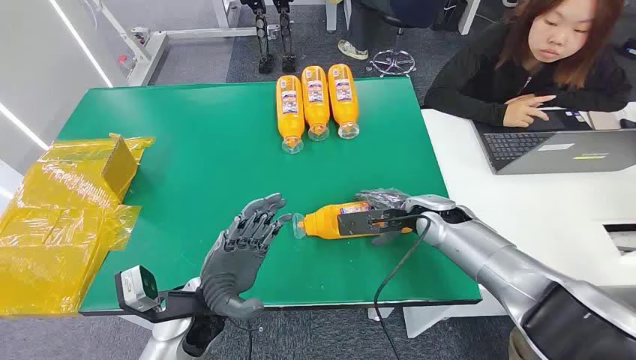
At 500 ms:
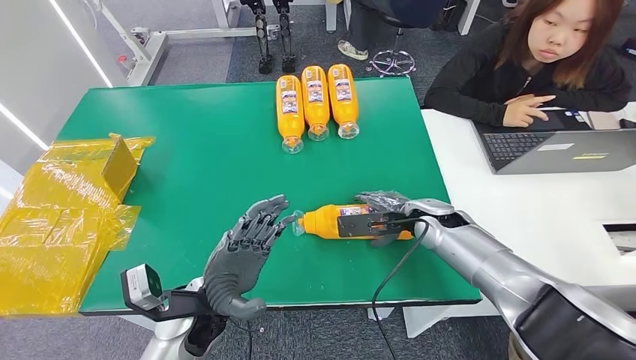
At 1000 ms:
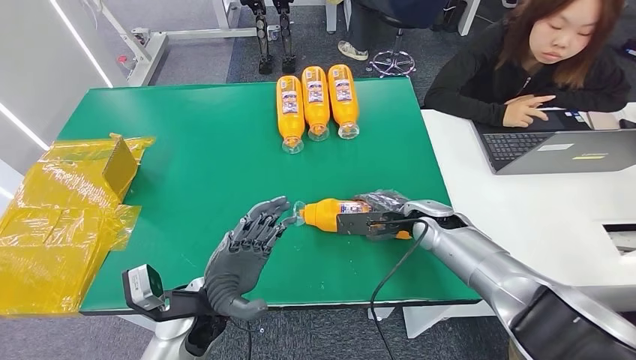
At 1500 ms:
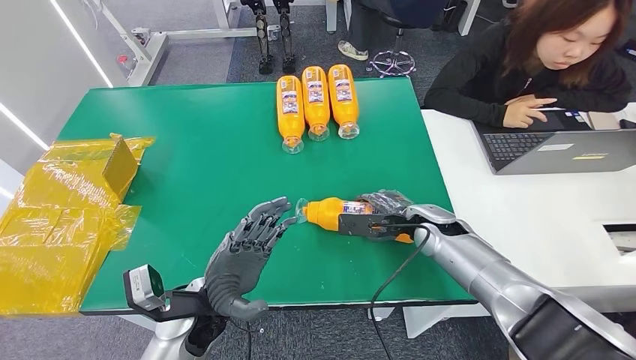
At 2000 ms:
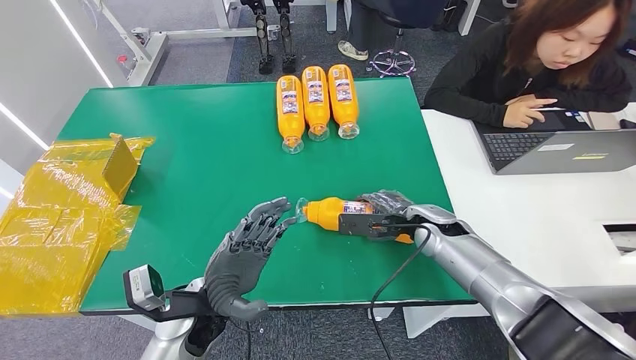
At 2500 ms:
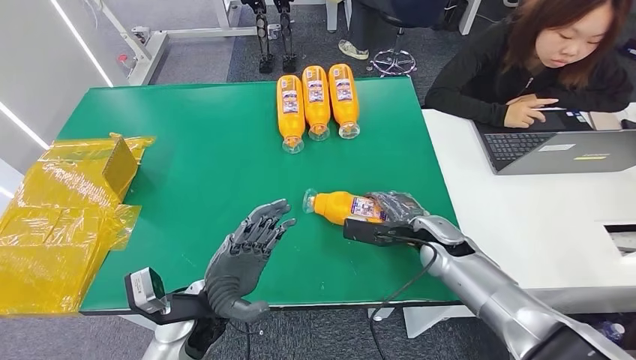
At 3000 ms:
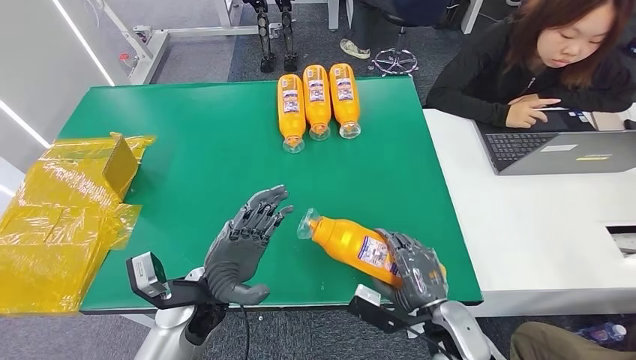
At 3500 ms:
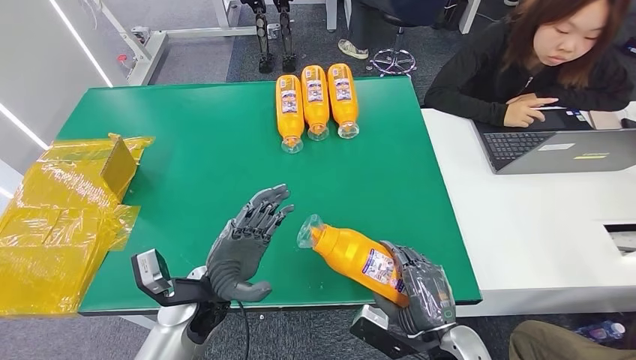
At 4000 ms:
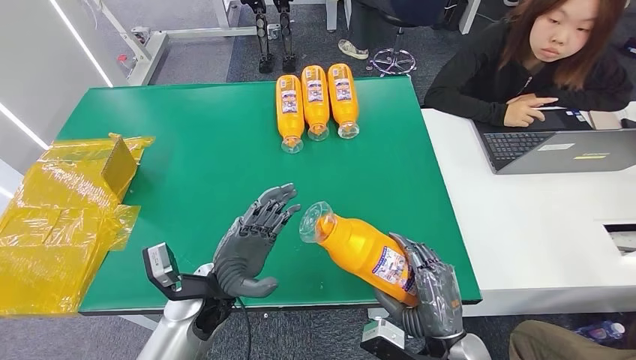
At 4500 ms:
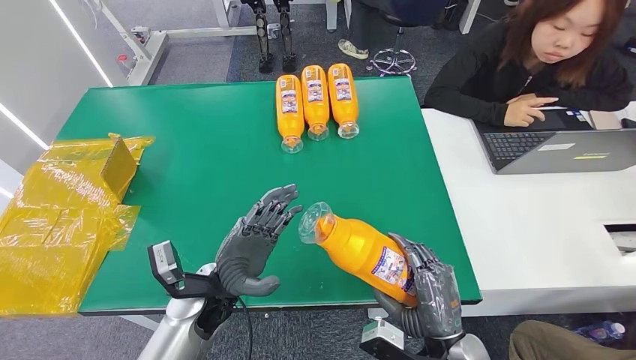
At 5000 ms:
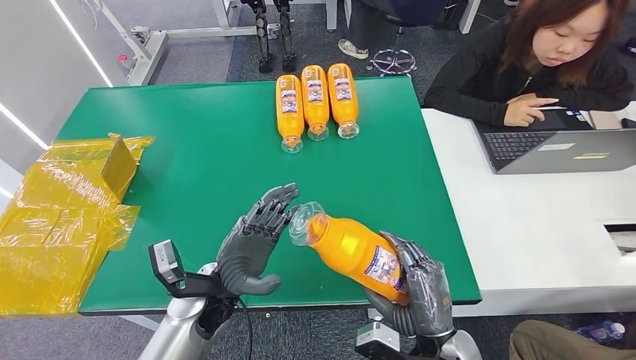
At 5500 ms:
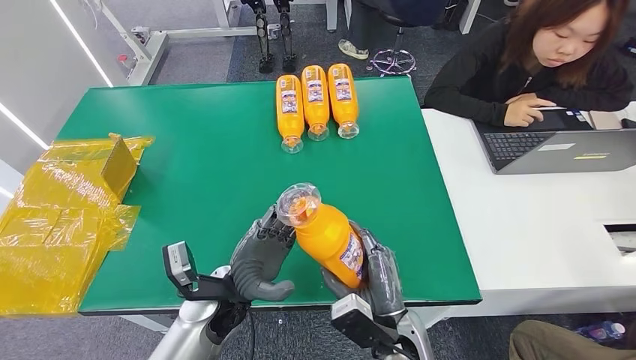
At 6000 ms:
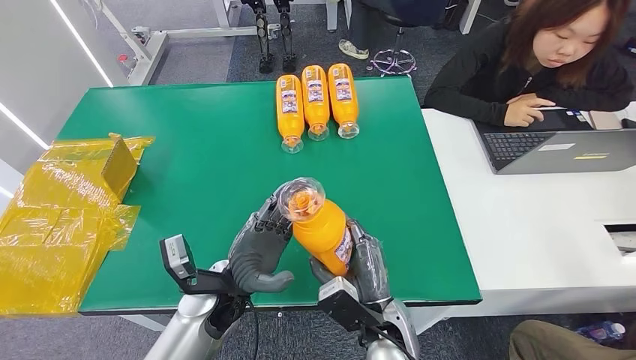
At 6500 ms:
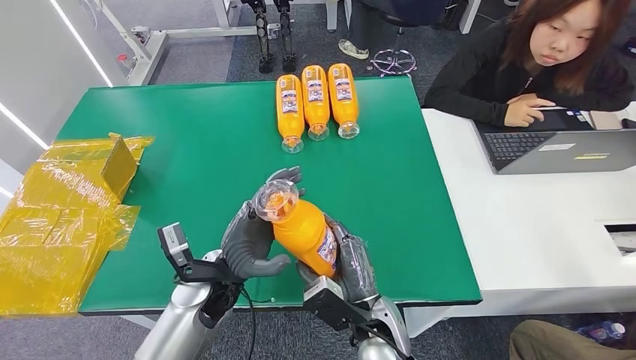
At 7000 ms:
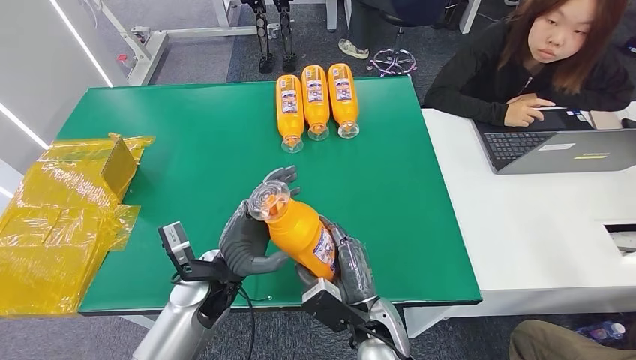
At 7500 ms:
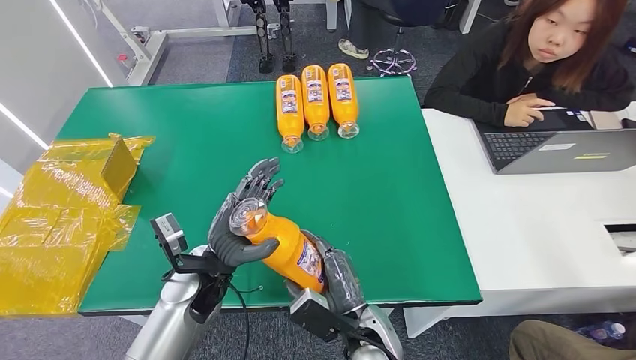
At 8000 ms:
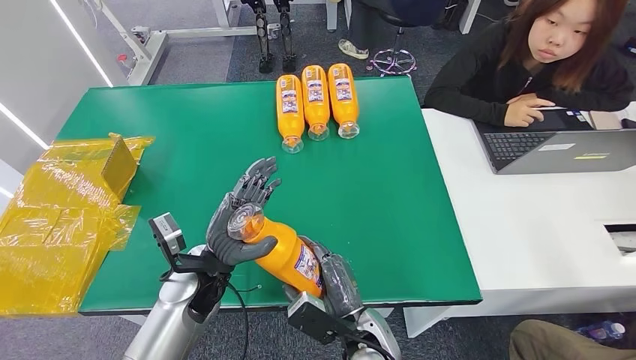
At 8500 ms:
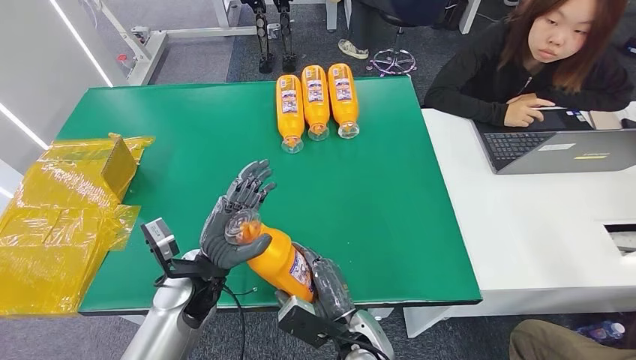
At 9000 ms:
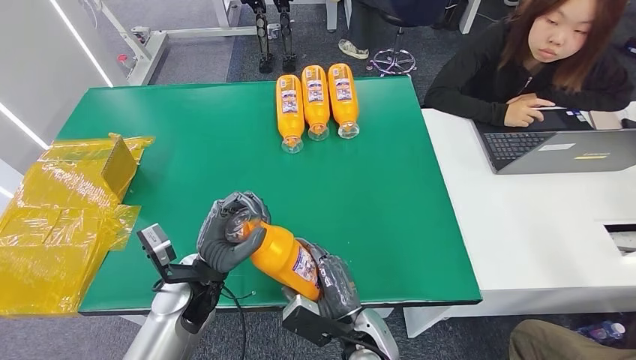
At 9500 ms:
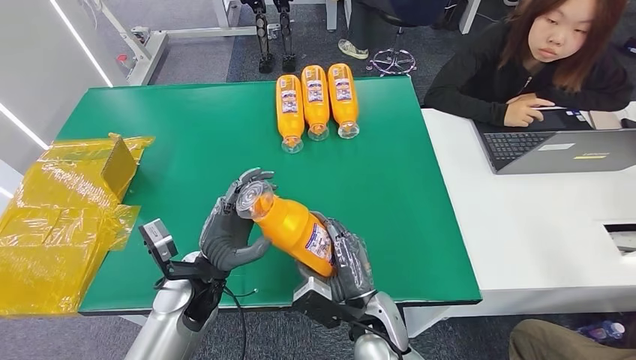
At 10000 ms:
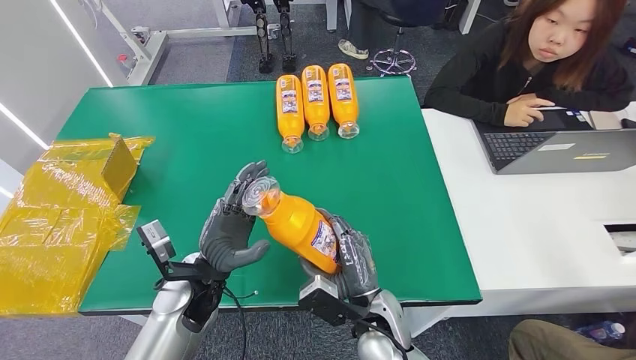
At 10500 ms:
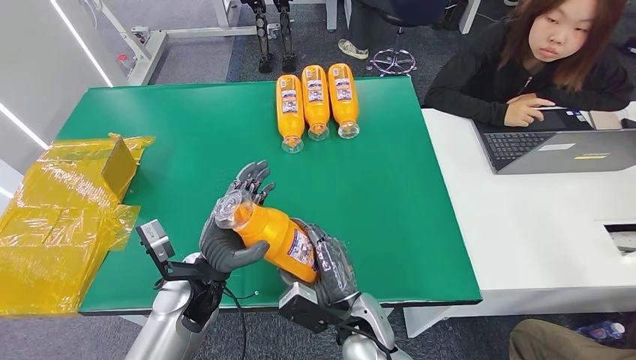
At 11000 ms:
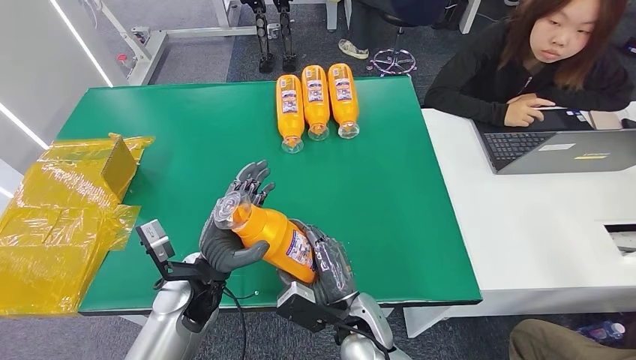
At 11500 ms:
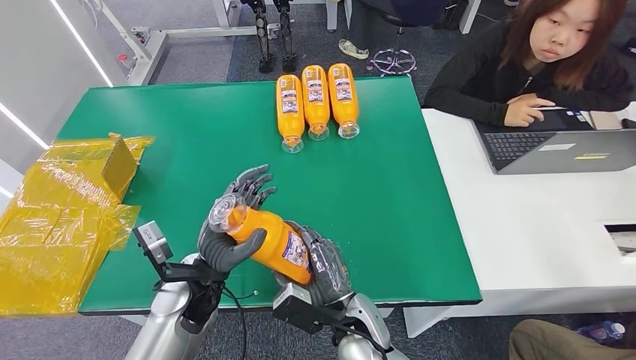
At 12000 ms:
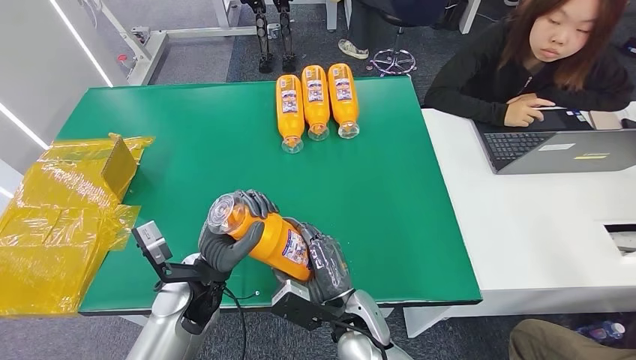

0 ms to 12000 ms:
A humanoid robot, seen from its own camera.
Step, 0 ms to 7000 ms: Pick up the bottle from the table.
2000 ms to 4000 ms: The right hand shifts approximately 25 cm backward.
4000 ms to 6000 ms: The right hand goes roughly 10 cm to the left and forward.
6000 ms to 12000 ms: The hands make only small movements.

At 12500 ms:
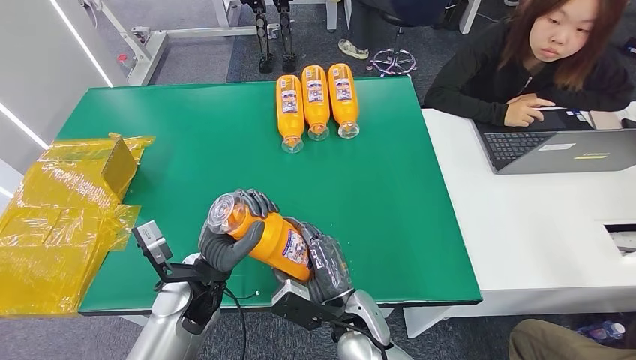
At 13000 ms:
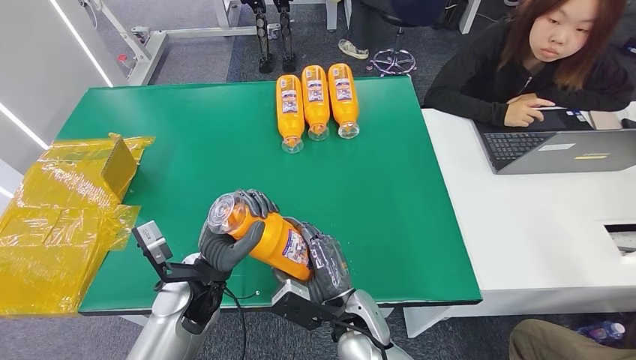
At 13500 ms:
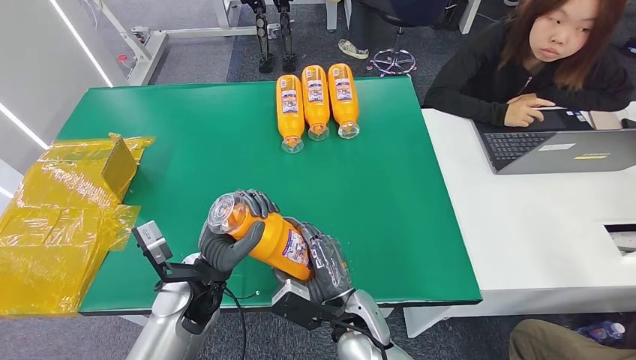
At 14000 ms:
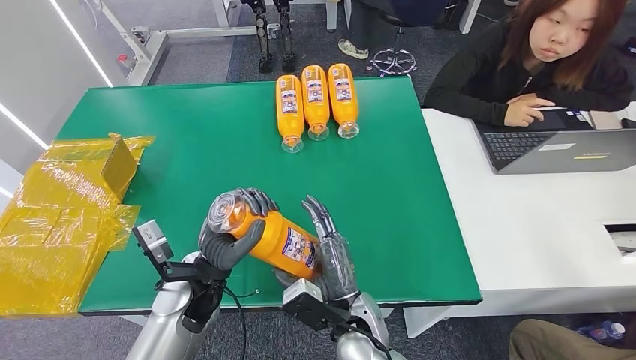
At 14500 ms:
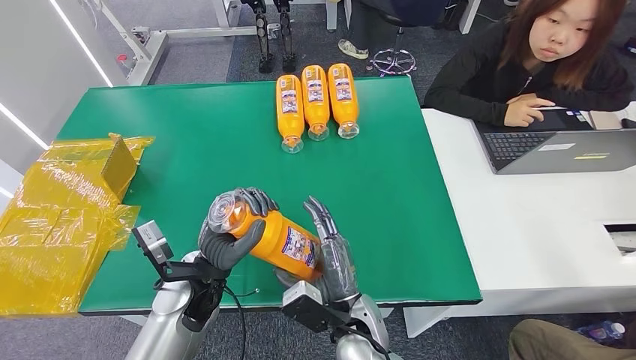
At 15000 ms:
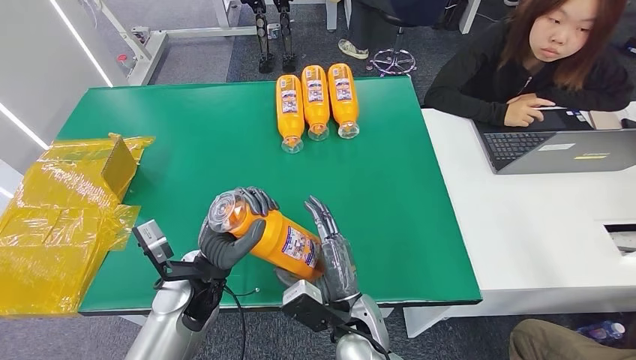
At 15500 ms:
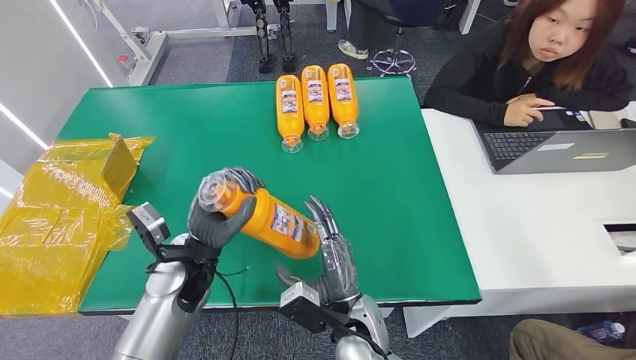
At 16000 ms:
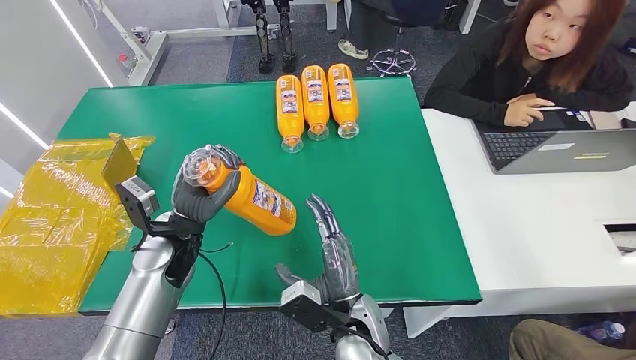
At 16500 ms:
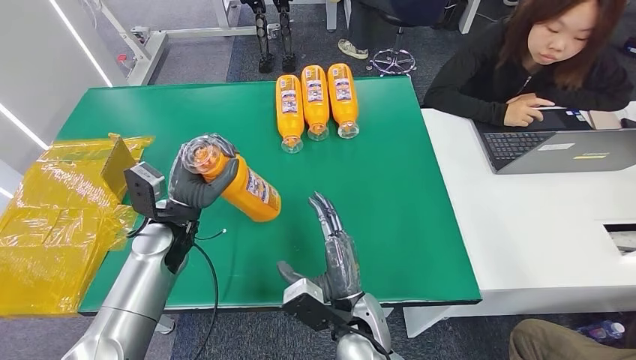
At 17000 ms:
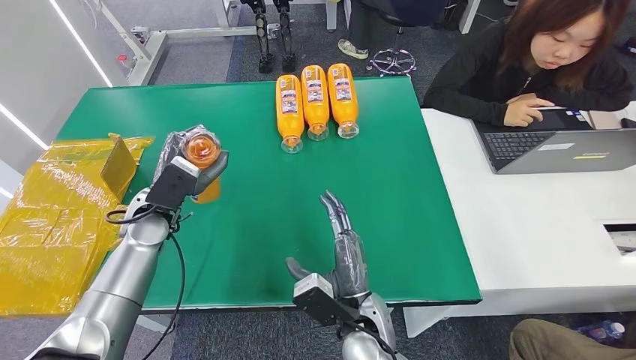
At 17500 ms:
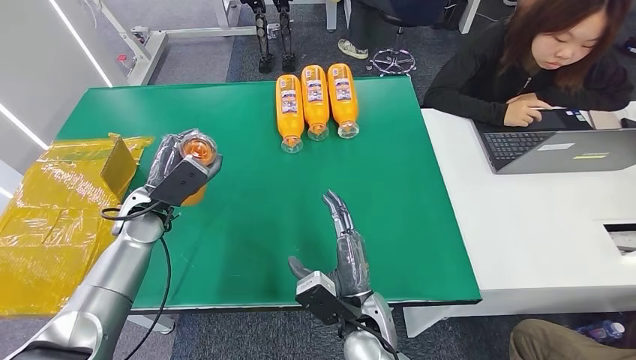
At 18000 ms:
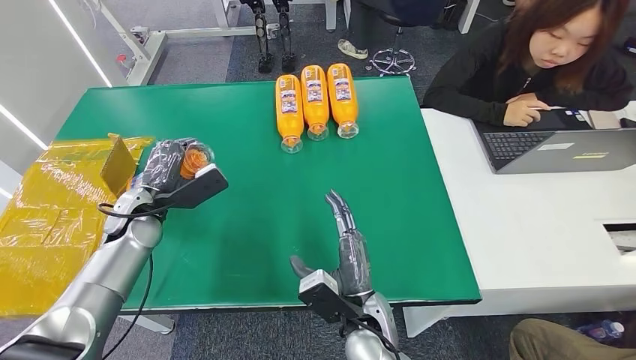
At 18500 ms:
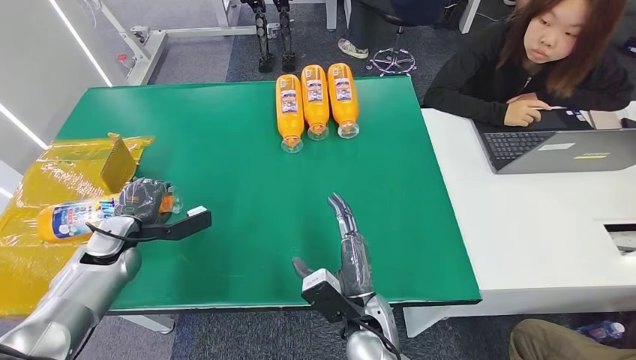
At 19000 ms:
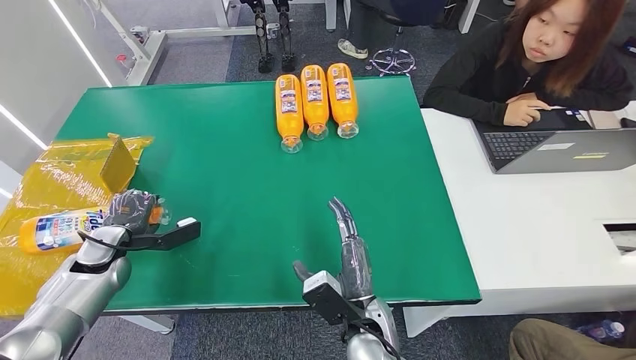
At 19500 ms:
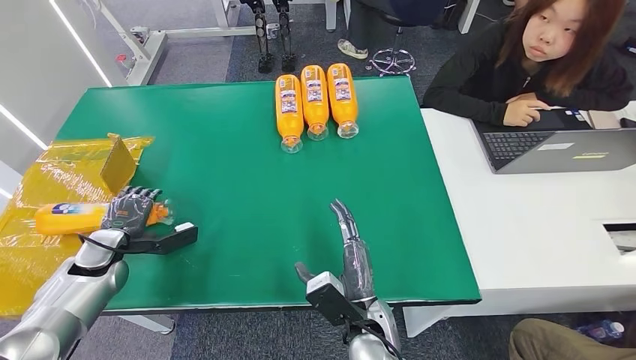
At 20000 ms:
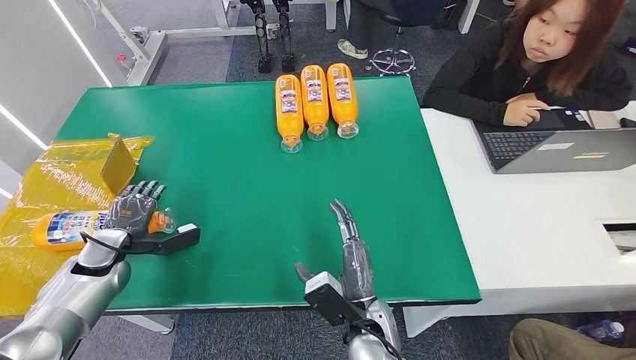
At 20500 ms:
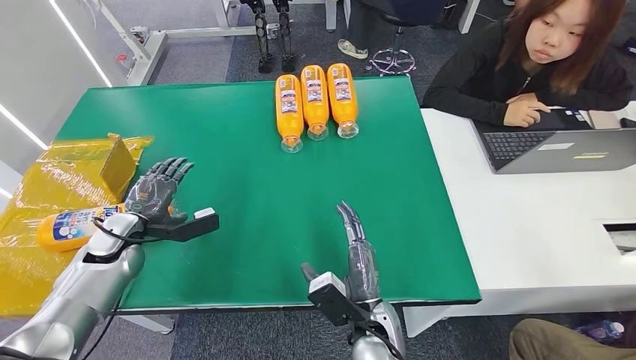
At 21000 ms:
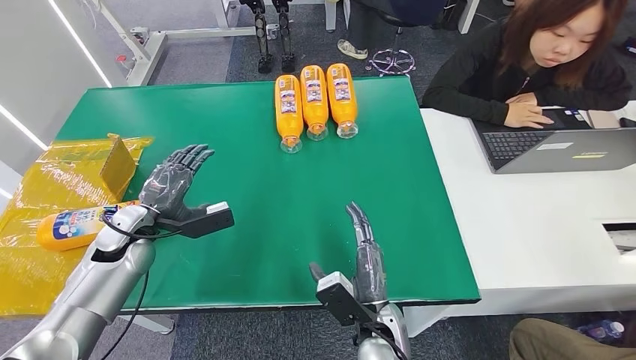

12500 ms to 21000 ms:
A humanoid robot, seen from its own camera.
Step, 12500 ms to 21000 ms: Turn the bottle to the front side.
12500 ms to 14500 ms: The hands make only small movements.
14500 ms to 16500 ms: The left hand moves forward and to the left, about 10 cm.
16500 ms to 19000 ms: The left hand moves to the left, some 15 cm.
19000 ms to 21000 ms: The left hand is displaced to the right by about 5 cm.
